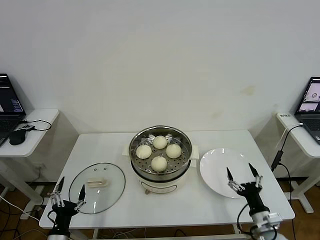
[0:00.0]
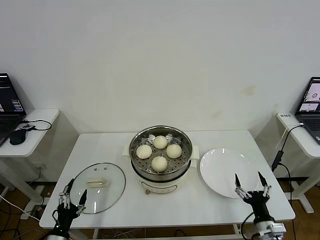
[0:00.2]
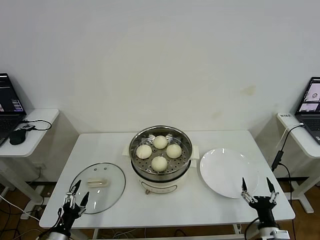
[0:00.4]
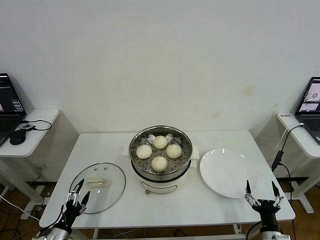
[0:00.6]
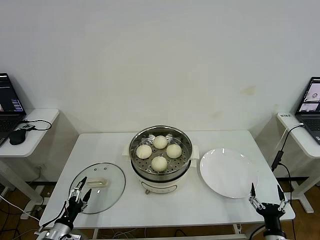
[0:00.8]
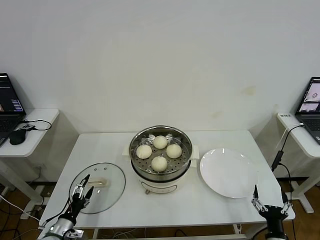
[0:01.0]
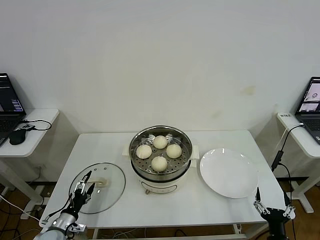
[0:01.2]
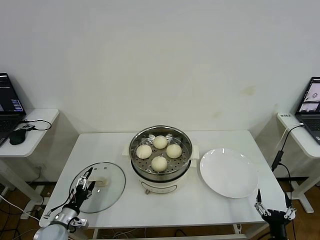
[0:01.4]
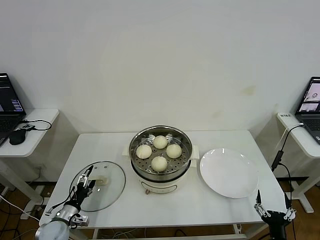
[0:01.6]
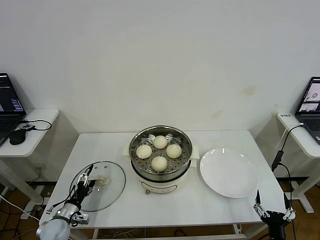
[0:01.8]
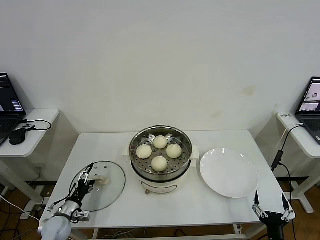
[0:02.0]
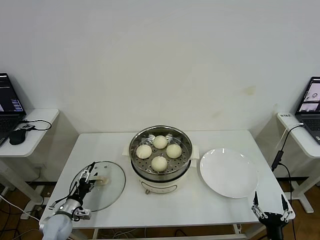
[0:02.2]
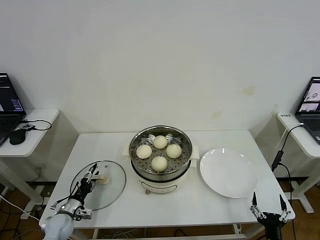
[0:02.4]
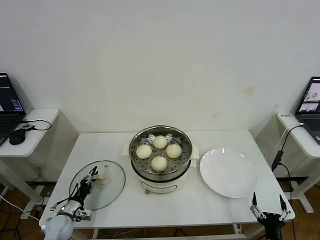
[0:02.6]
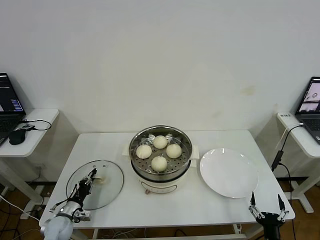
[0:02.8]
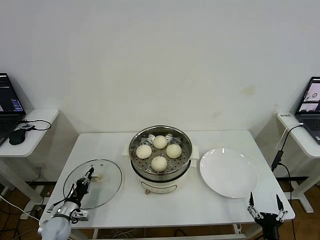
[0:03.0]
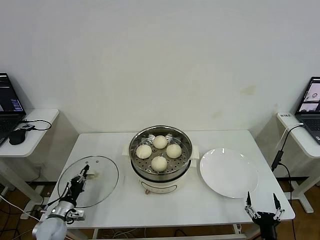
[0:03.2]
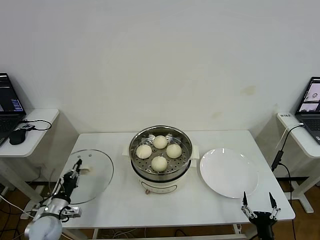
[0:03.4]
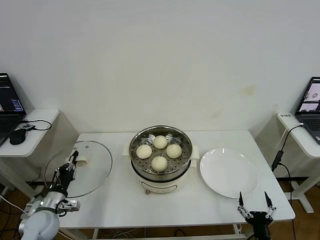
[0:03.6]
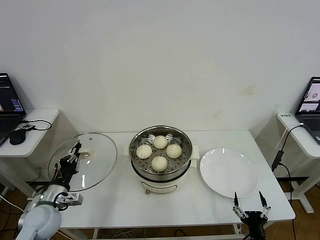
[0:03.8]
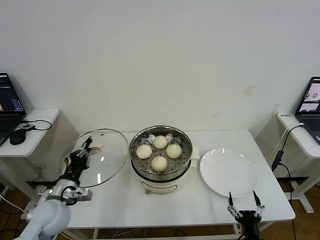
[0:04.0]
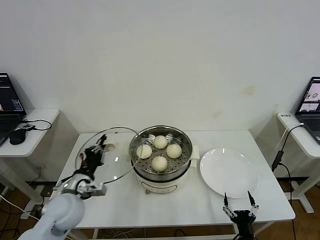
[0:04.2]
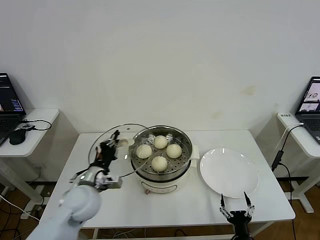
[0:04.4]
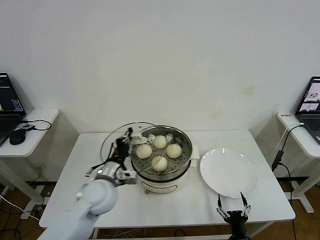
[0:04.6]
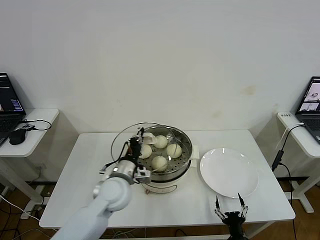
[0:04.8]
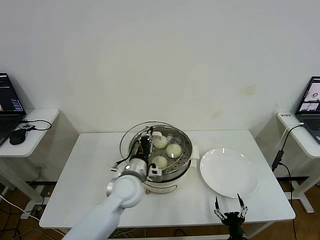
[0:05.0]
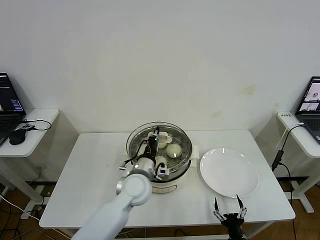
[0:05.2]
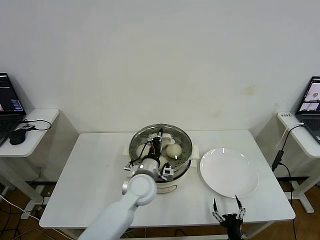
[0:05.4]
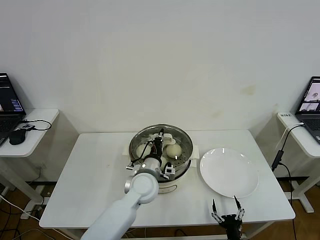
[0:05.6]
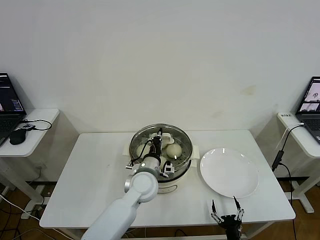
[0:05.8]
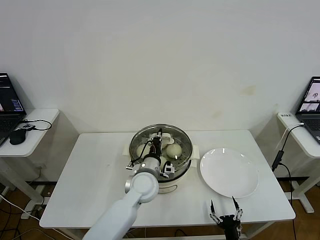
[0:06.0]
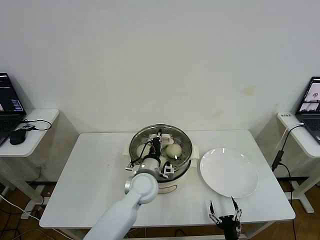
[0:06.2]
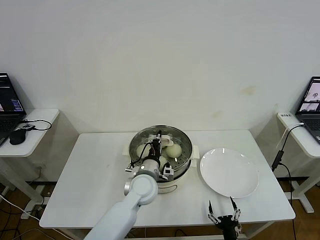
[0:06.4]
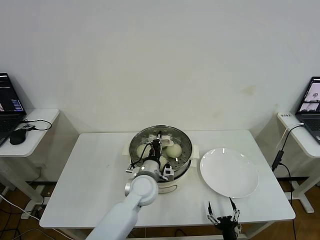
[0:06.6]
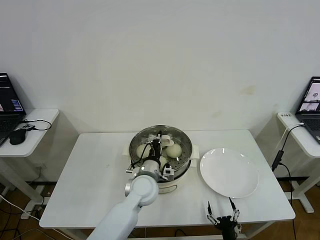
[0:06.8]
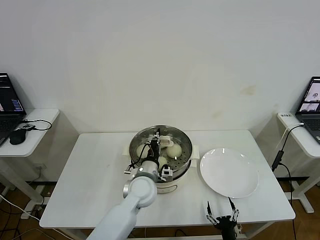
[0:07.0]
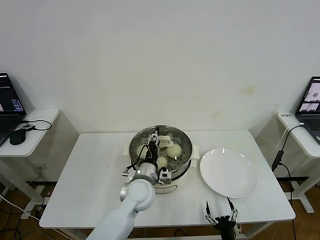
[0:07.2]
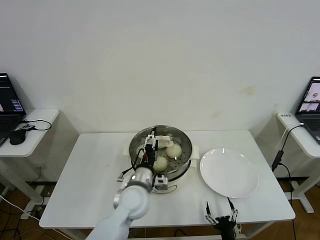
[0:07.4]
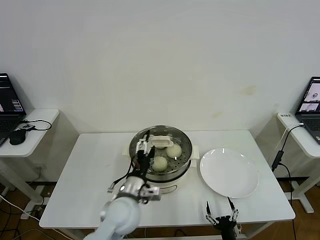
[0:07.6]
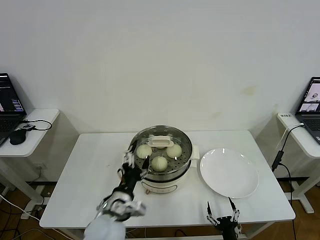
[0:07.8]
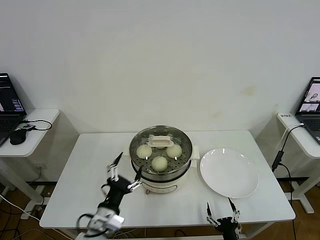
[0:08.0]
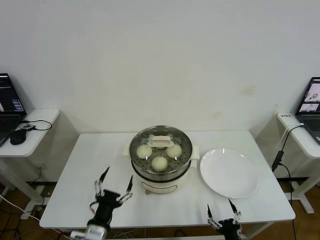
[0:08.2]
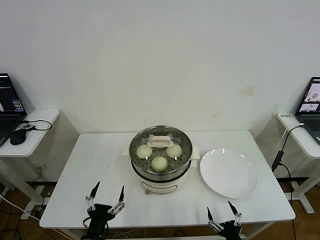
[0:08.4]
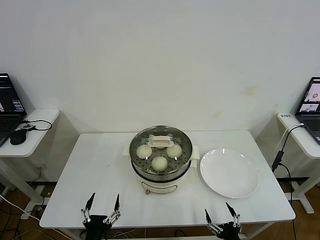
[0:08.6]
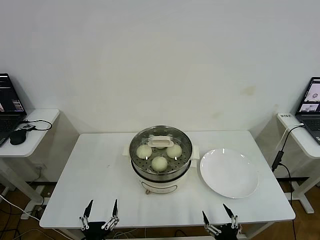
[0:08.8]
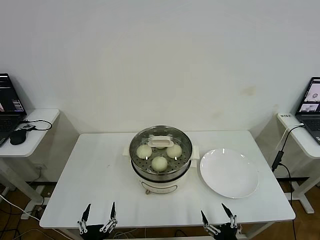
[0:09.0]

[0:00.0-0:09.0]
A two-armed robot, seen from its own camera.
Step, 0:00.0 to 0:02.8: Grasp the pot lid with left gripper.
Step, 0:03.2 to 0:07.0: Place the pot lid on the steamer with left gripper.
0:00.0 to 0:01.6: The left gripper is displaced forward, to the left and downward by about 15 cm; the right gripper heads backward, covering about 10 cm.
0:01.6 to 0:03.0: The left gripper closes its fingers.
0:03.0 to 0:04.4: The right gripper travels to the left by some 5 cm; the left gripper is displaced upward and to the right by roughly 25 cm.
0:04.4 to 0:06.0: The left gripper is displaced to the right by some 20 cm.
0:06.0 to 0:07.6: The left gripper travels backward by about 10 cm, and opens its fingers.
0:07.6 to 0:09.0: The right gripper goes approximately 10 cm upward; the left gripper is displaced backward, to the left and downward by about 25 cm.
